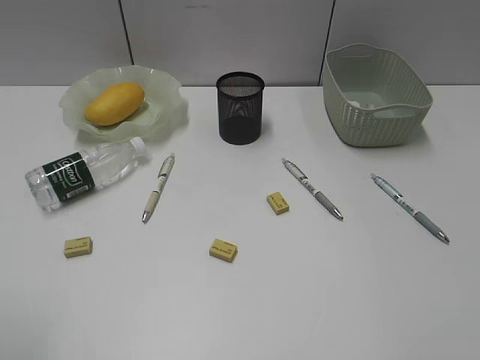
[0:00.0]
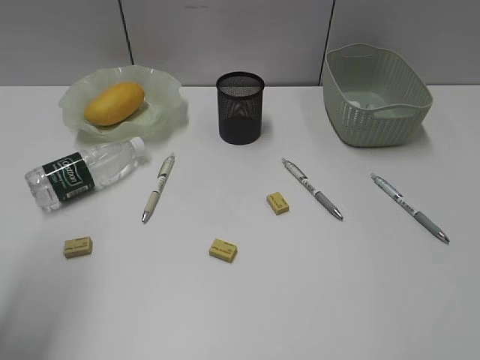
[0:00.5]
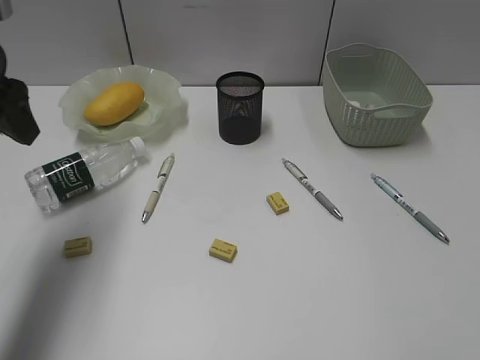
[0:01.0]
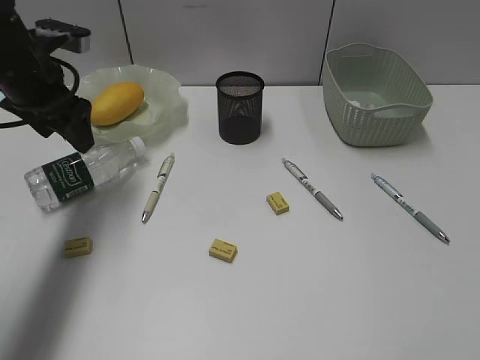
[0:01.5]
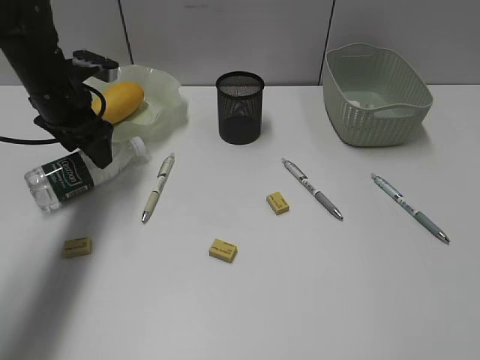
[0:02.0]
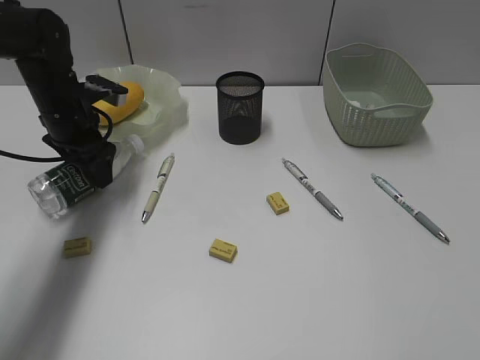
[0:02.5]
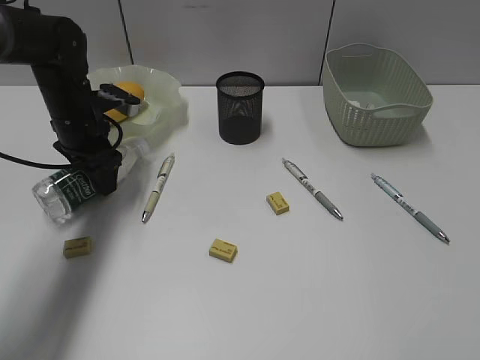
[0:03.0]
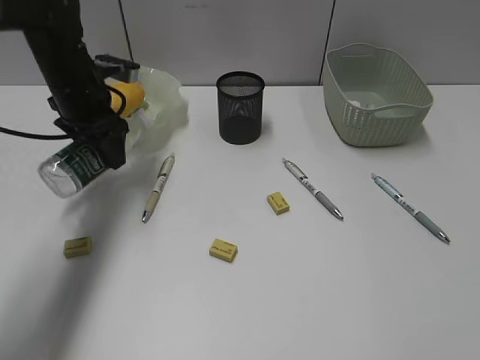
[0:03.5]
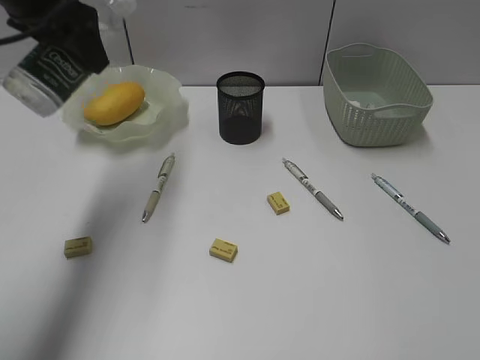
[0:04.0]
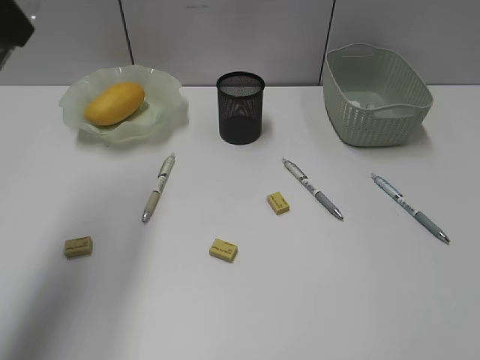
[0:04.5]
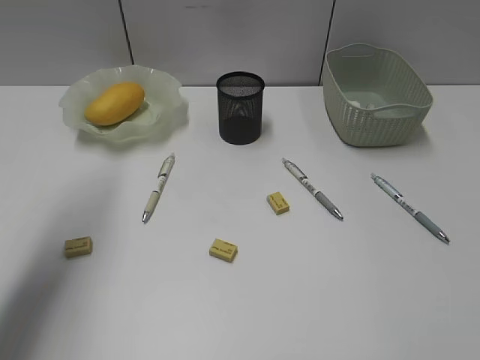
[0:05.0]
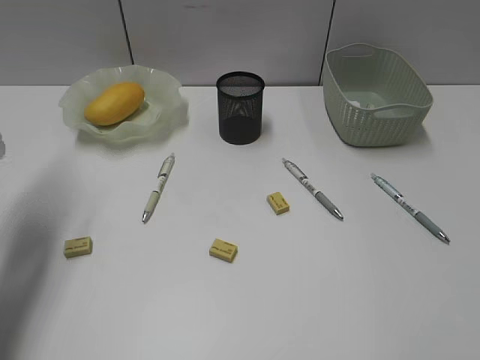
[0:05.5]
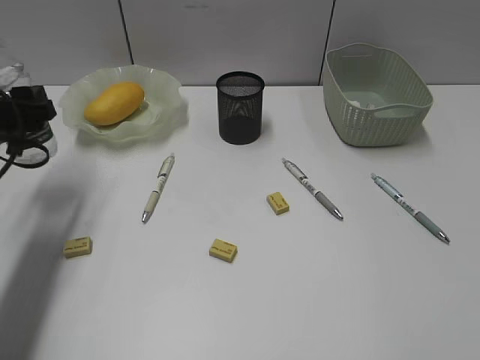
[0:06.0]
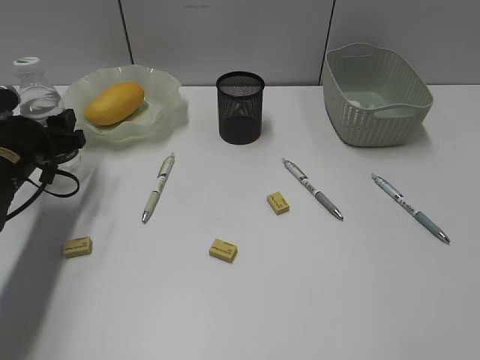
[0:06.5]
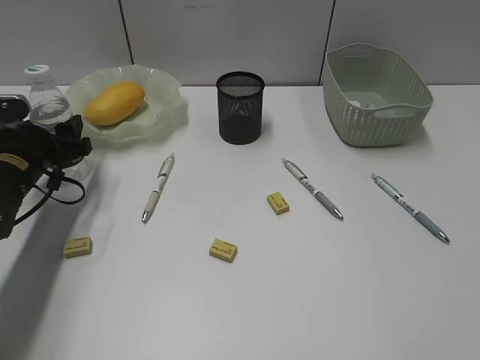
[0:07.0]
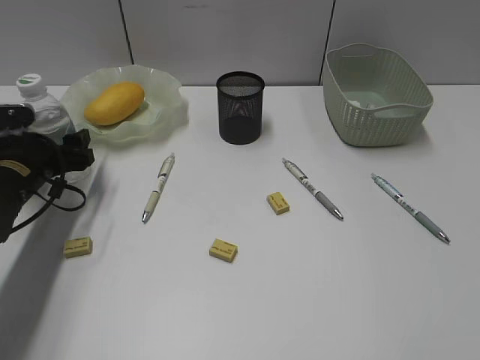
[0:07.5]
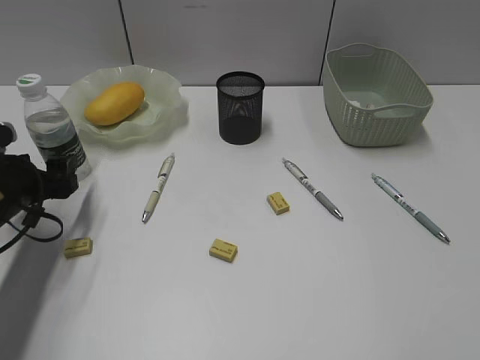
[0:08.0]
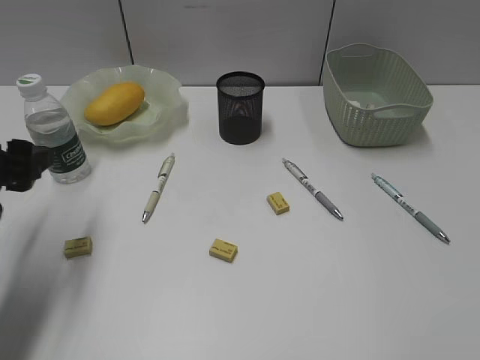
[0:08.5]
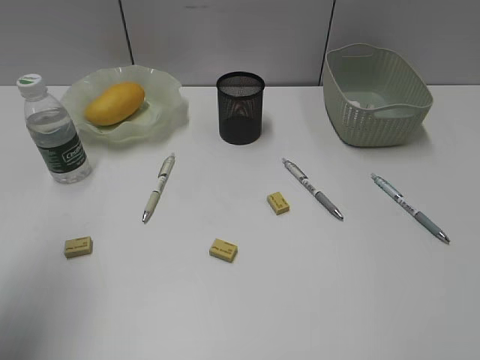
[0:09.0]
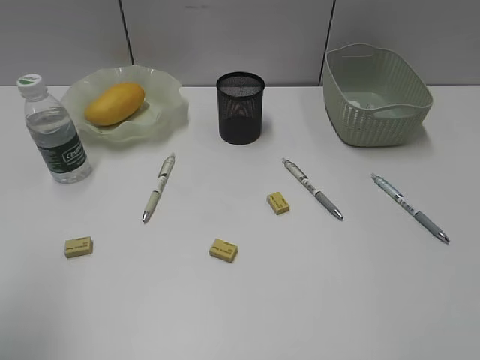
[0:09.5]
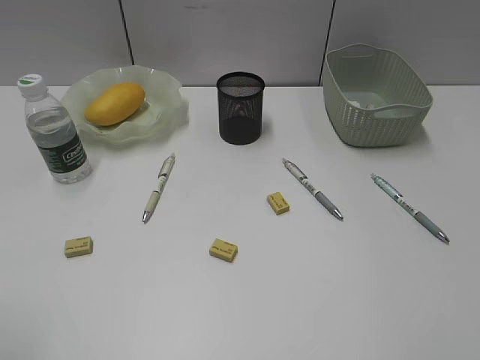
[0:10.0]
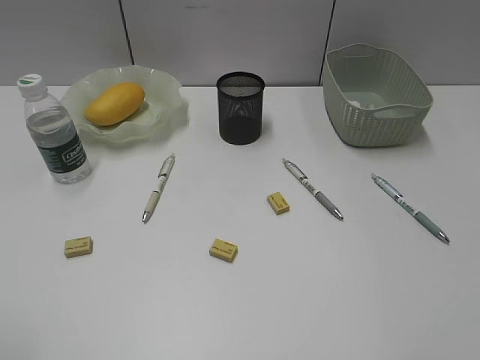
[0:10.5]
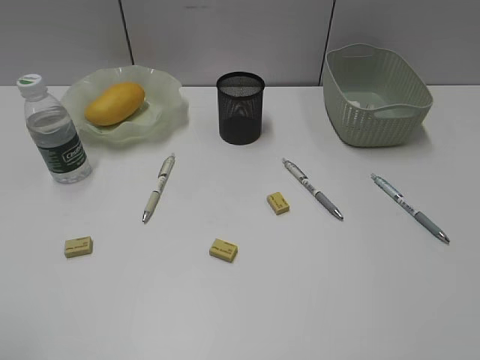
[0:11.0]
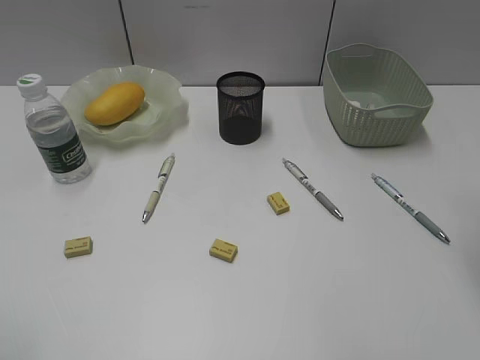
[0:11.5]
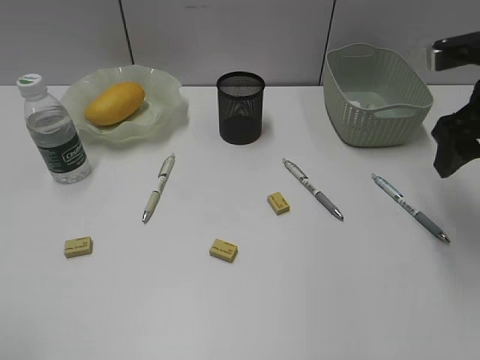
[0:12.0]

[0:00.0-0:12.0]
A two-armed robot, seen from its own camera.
Step, 0:00.0 to 0:02.5: Grasp the bottle with left gripper.
Step, 0:03.0 to 0:07.5: Stand the bottle with left gripper.
0:00.0 to 0:02.0: The left gripper goes roughly 40 cm forward, and opens.
0:02.0 to 0:04.0: The left gripper goes roughly 15 cm upward.
0:04.0 to 0:06.0: The left gripper goes roughly 20 cm downward, to the left and backward.
0:06.0 to 0:08.0: The left gripper heads downward, covering some 10 cm.
0:08.0 to 0:10.0: The left gripper goes roughly 30 cm backward and upward, and closes up.
0:10.0 to 0:12.0: The right gripper travels forward by about 25 cm.

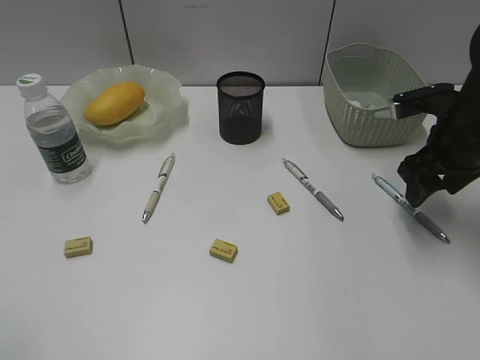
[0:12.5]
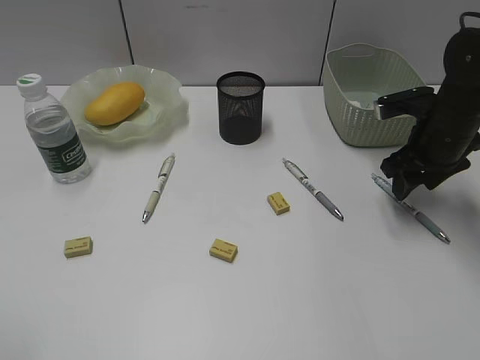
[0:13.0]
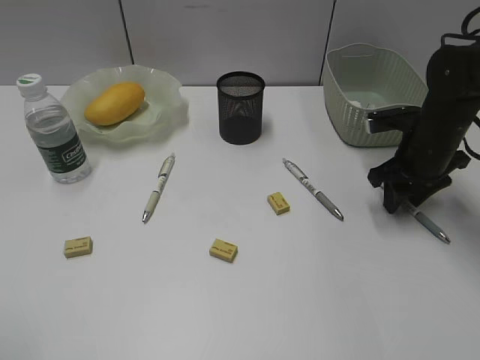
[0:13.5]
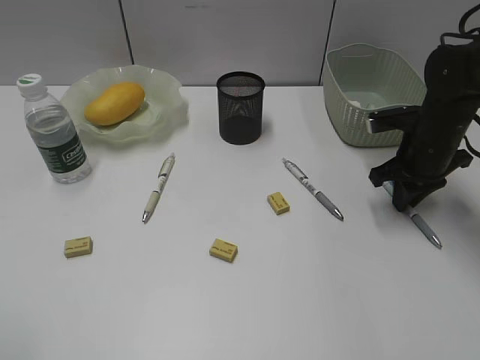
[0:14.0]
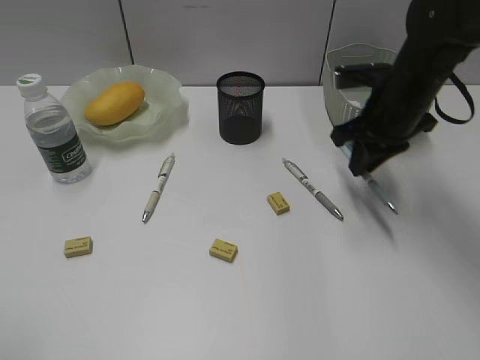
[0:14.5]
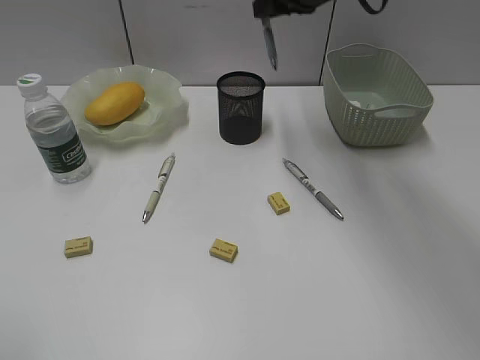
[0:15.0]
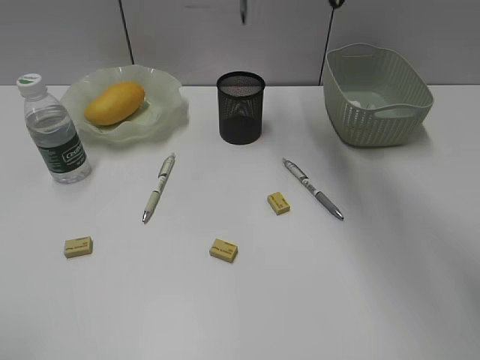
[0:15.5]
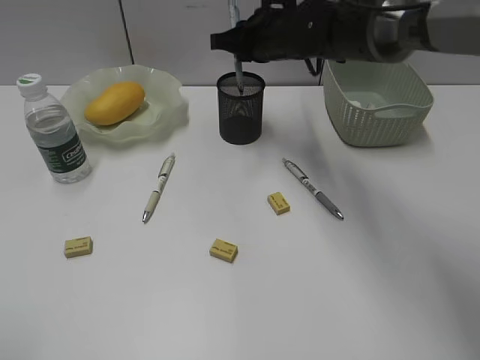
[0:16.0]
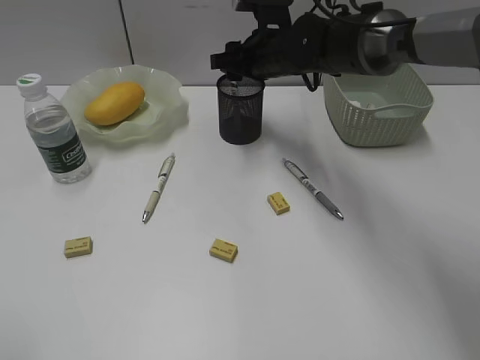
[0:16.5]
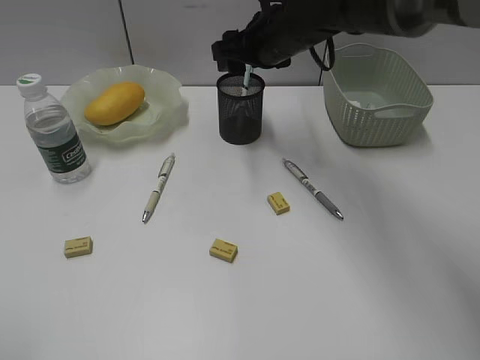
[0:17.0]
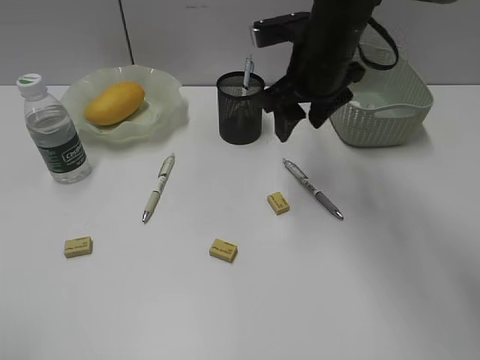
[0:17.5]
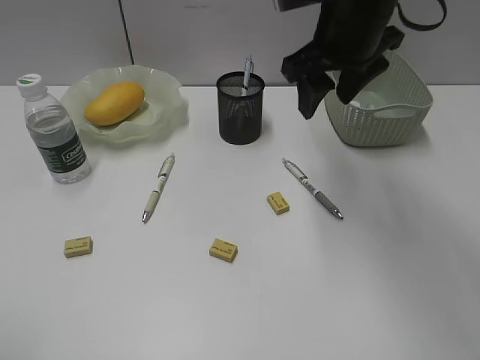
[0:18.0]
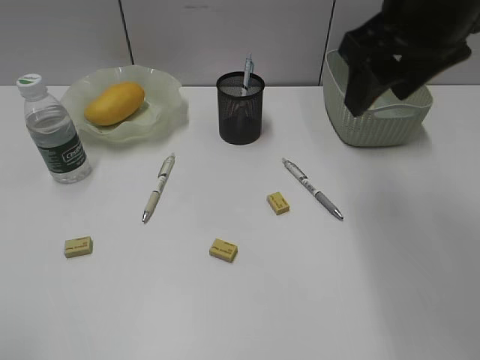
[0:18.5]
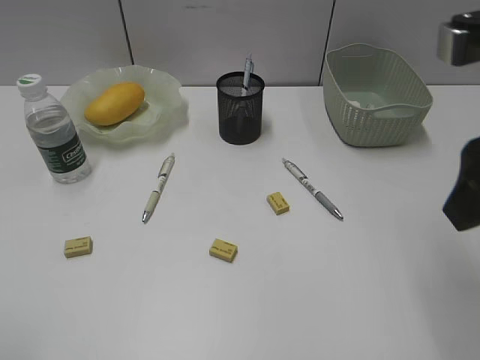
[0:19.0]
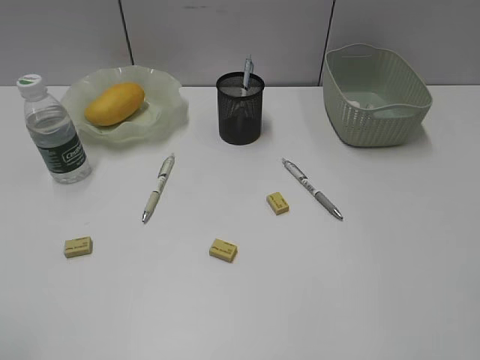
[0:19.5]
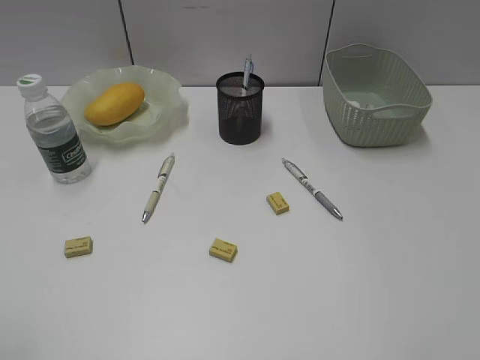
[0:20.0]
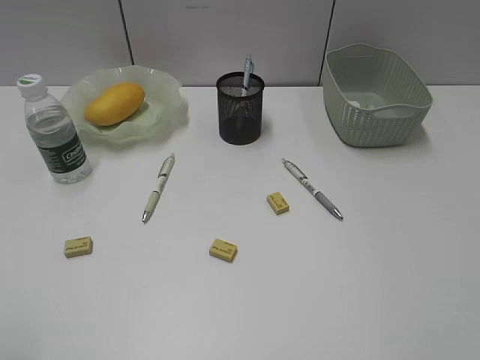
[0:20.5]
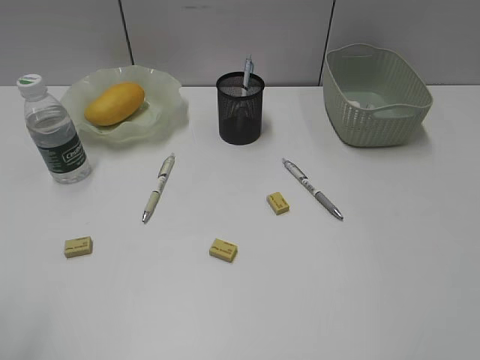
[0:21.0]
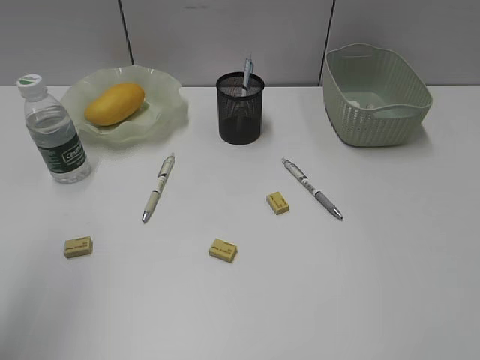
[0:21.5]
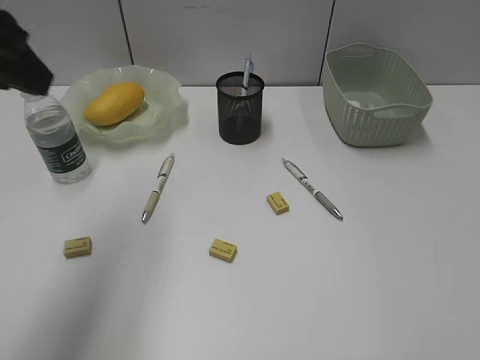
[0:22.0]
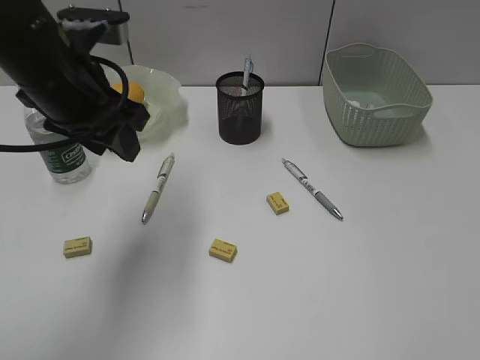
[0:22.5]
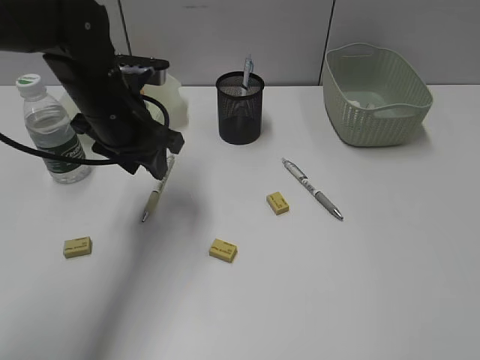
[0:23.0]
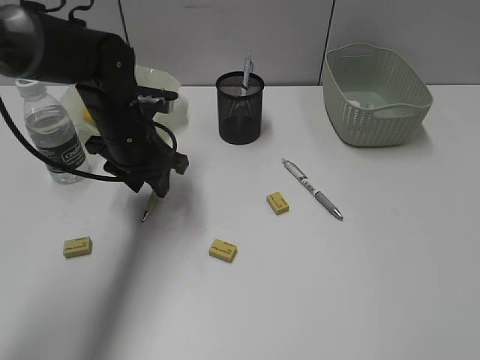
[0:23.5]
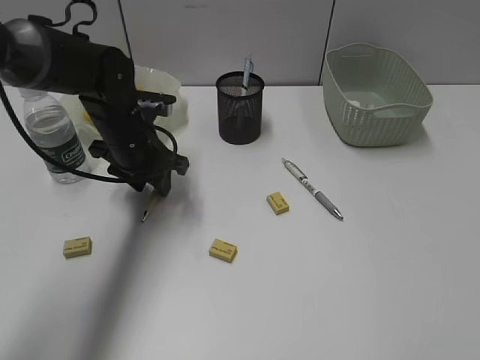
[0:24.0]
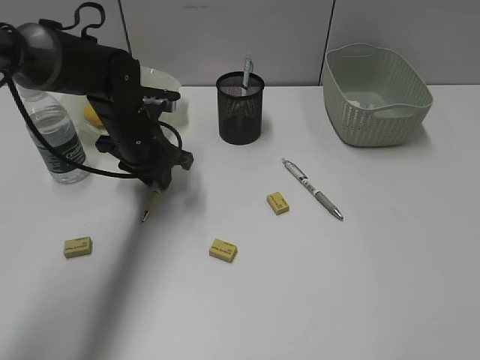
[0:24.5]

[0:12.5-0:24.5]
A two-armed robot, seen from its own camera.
Step, 0:14.5 to 0:16.5: Place the blue pen in pen holder with right gripper.
0:12.5 to 0:14.5: The right gripper shifts roughly 5 cm to the left, and closes up.
0:14.5 to 0:16.5: The right gripper moves to the left and forward, about 15 cm, and opens up.
0:16.5 to 0:18.5: The right gripper shifts roughly 25 cm backward, upward and to the right.
0:18.5 to 0:20.5: The right gripper is displaced backward and to the right by approximately 30 cm.
0:20.5 to 0:22.5: The left gripper travels forward and to the right by about 30 cm.
0:22.5 to 0:24.5: The left gripper shifts roughly 20 cm downward and forward.

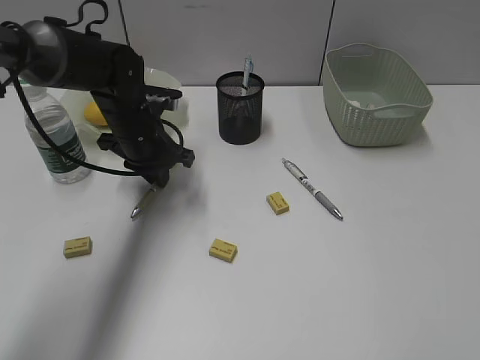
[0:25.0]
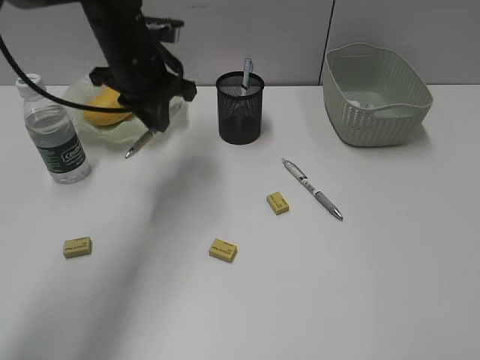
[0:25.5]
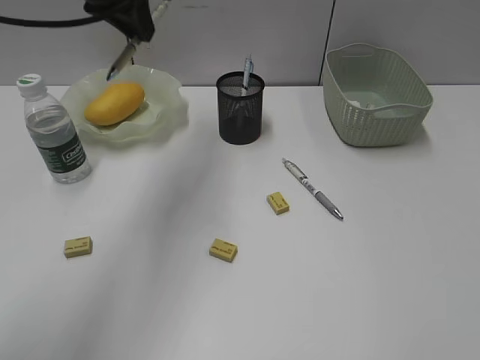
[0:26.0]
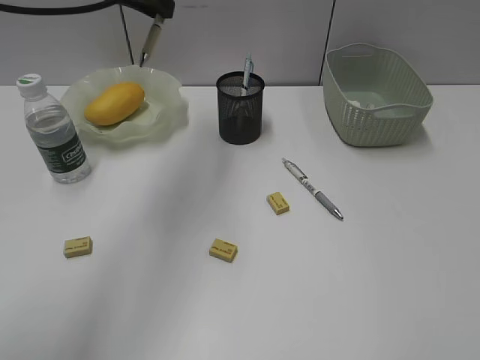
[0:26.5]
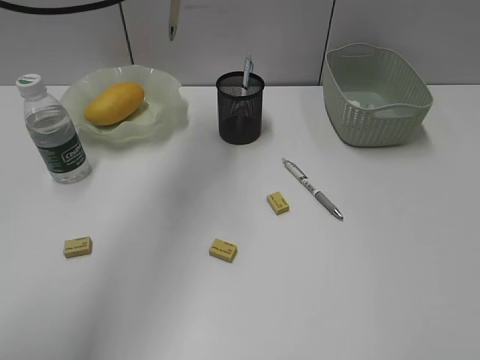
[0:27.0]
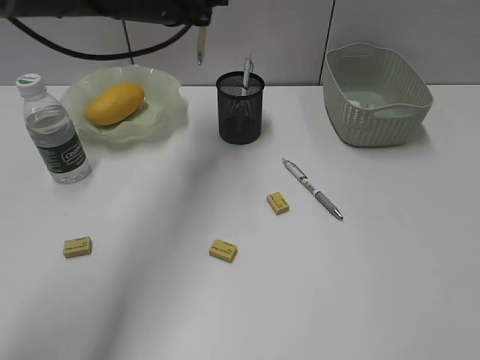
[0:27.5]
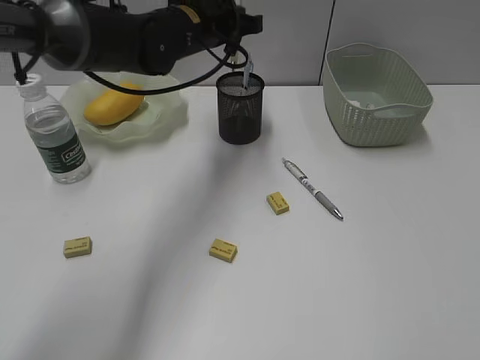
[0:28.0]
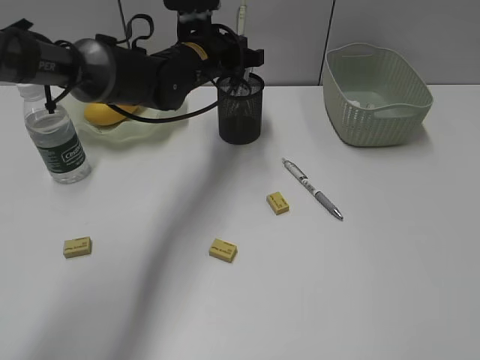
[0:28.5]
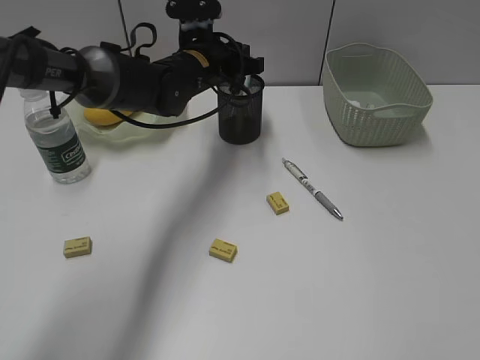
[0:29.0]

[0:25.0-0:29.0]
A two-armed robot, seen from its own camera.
0:25.0 to 0:27.0: The left gripper heads upward, covering approximately 20 cm.
0:27.0 to 0:29.0: The left gripper shifts roughly 20 cm downward and to the right.
